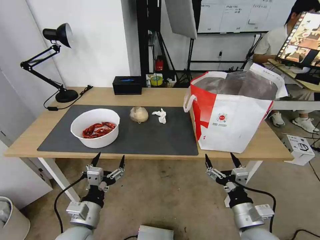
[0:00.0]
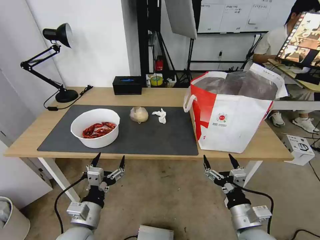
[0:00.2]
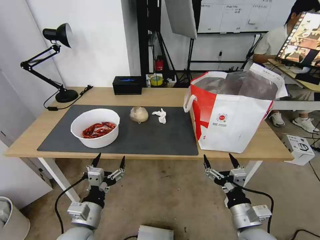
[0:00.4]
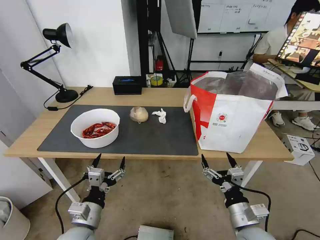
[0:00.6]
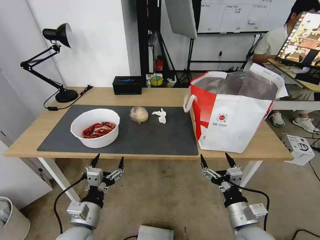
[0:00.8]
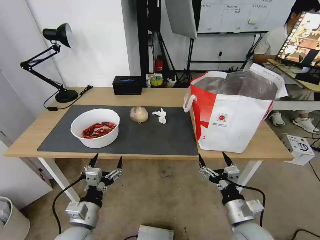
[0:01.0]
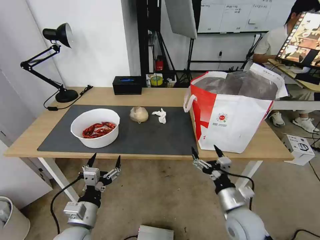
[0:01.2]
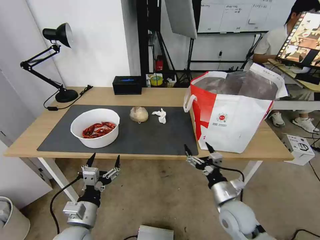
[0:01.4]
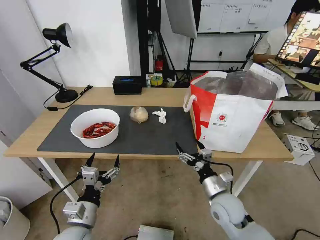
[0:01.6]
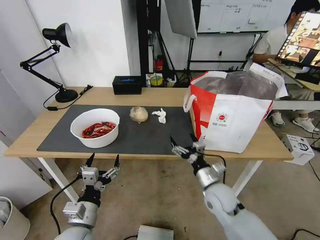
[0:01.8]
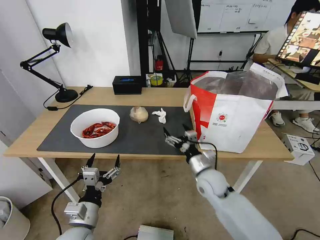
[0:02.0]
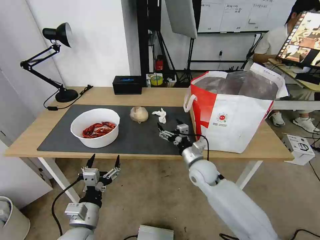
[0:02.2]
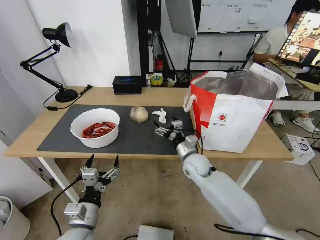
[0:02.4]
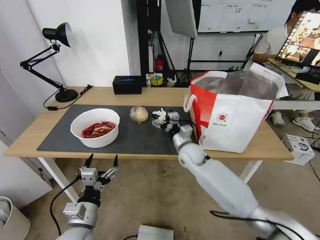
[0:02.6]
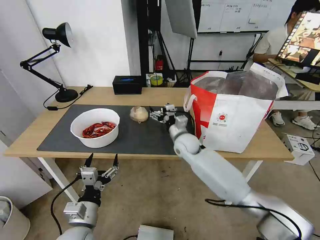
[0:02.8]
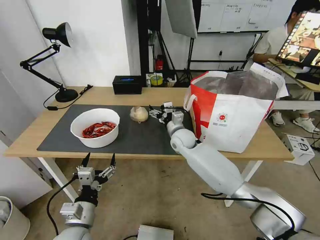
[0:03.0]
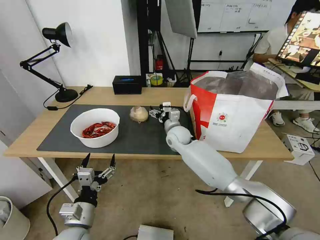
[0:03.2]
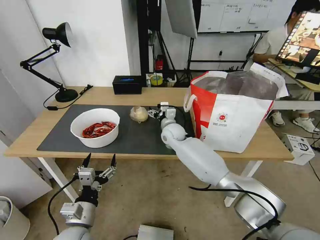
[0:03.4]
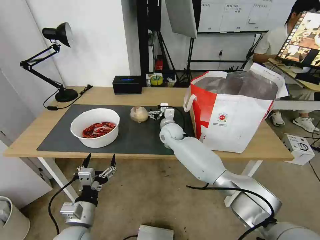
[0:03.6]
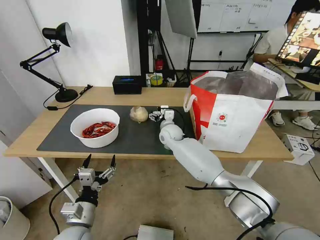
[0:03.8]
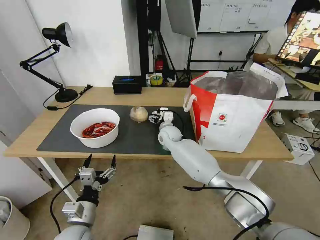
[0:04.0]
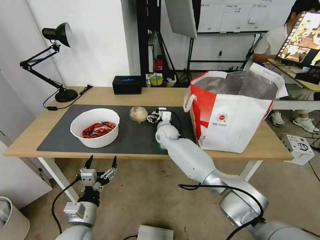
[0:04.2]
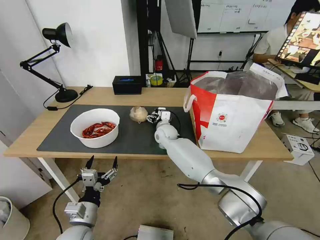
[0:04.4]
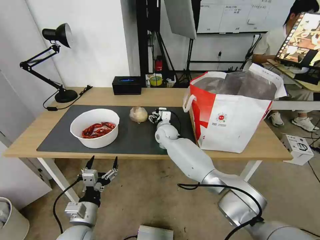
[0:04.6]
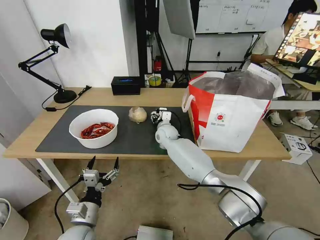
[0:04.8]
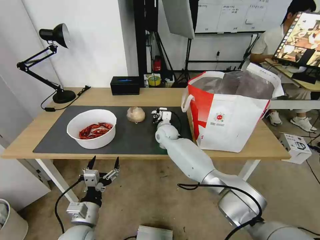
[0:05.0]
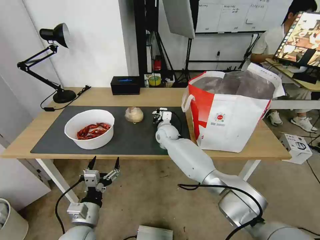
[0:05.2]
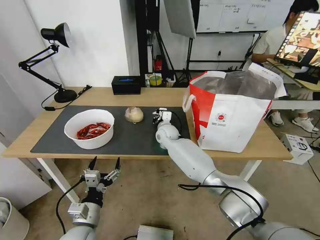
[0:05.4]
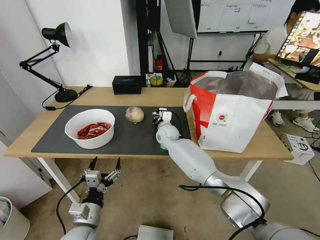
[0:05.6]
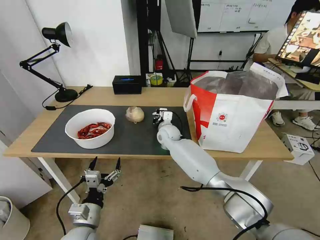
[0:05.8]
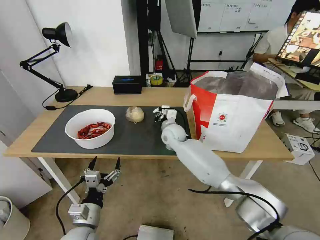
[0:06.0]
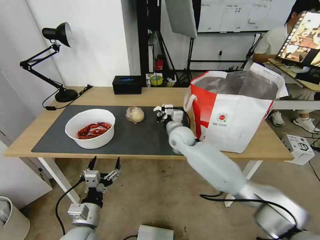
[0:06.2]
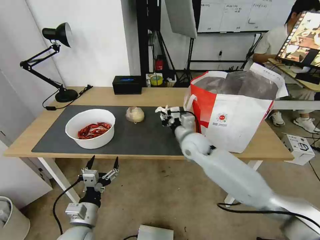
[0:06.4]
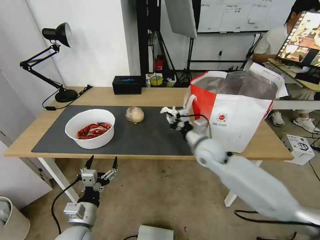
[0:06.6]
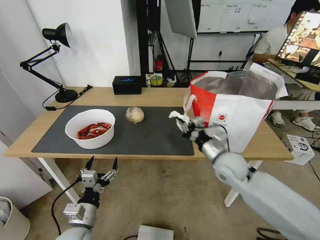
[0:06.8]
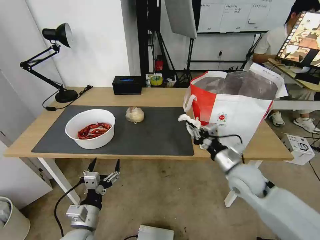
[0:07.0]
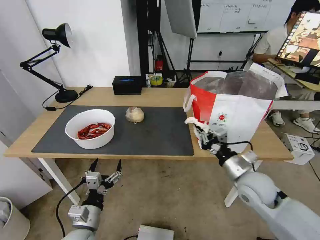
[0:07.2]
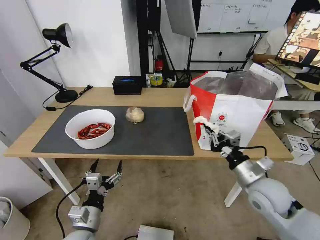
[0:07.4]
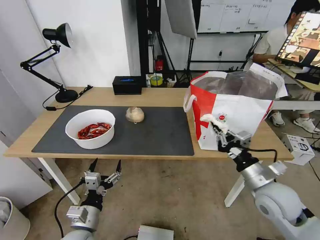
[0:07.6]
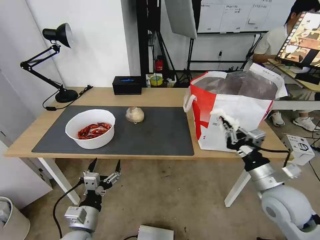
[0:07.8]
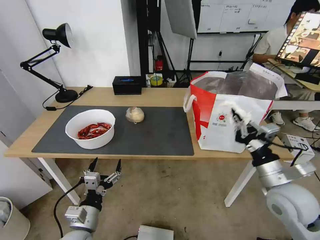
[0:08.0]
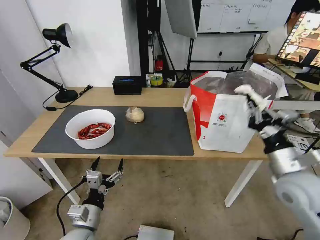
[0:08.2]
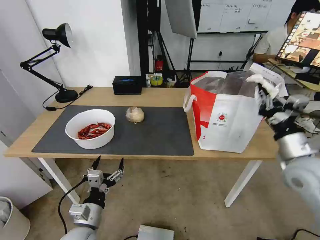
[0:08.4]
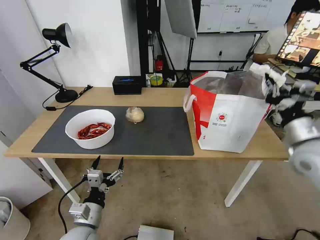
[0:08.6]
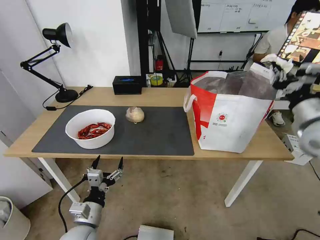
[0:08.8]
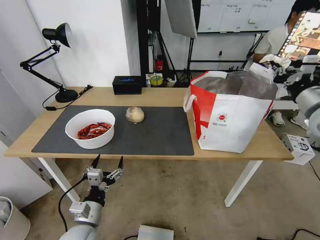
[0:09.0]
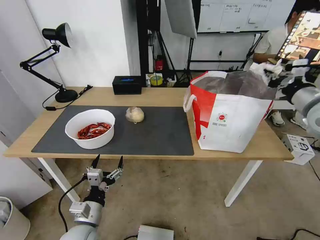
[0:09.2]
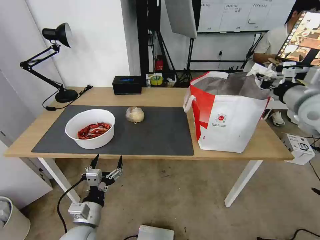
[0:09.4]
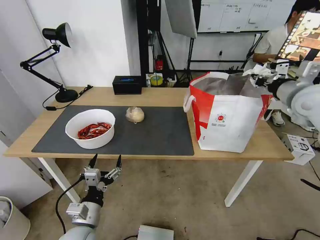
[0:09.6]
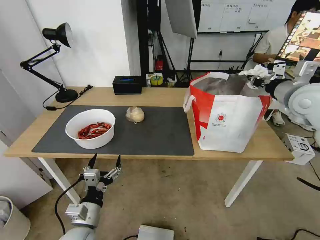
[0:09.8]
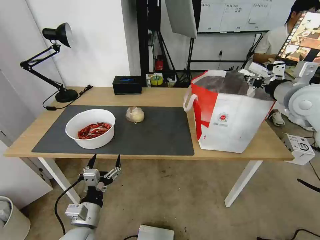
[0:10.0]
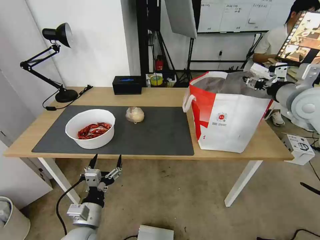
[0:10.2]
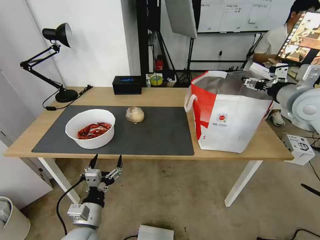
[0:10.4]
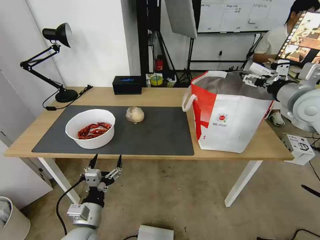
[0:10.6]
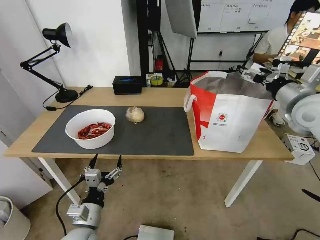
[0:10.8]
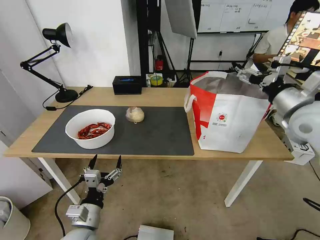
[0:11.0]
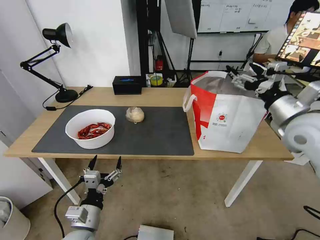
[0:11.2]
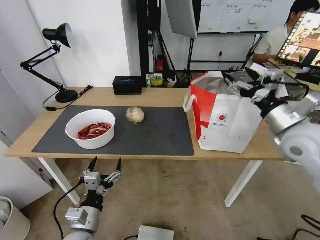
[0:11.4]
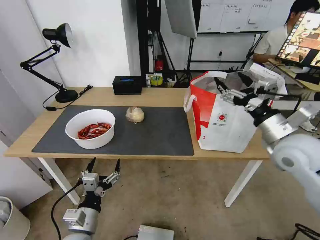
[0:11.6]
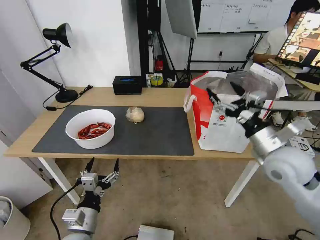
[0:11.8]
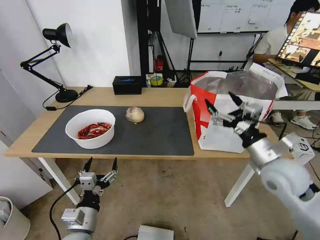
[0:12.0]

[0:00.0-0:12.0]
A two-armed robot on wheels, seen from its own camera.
Task of the whole recording: Pick up the trash from the table and place it into the takeout bag.
0:00.0 to 0:01.6: The right gripper goes roughly 10 cm forward.
0:01.6 to 0:03.0: The right gripper moves forward and to the left, some 25 cm.
0:03.0 to 0:04.4: The right gripper moves to the left and forward, approximately 10 cm.
0:04.4 to 0:06.0: The right gripper changes place by about 5 cm, and closes its fingers.
0:06.0 to 0:07.6: The right gripper heads backward and to the right, covering about 35 cm.
0:07.6 to 0:09.0: The right gripper shifts roughly 25 cm upward, forward and to the right.
0:09.0 to 0:10.4: The right gripper changes place by roughly 5 cm, and opens.
0:10.4 to 0:12.0: The right gripper goes some 20 cm downward, backward and to the left.

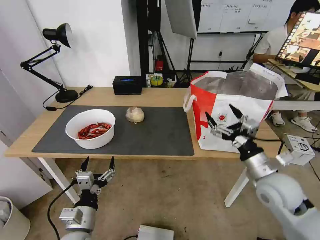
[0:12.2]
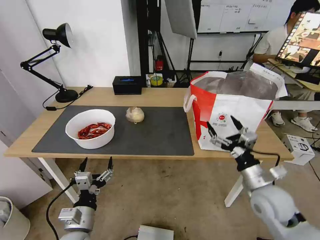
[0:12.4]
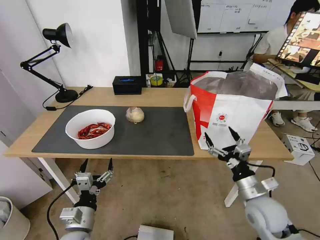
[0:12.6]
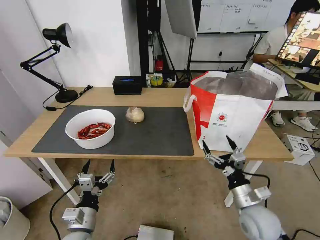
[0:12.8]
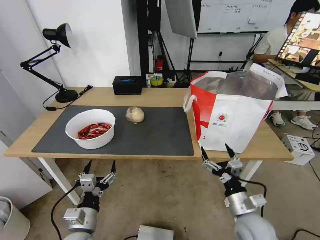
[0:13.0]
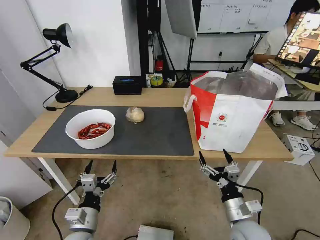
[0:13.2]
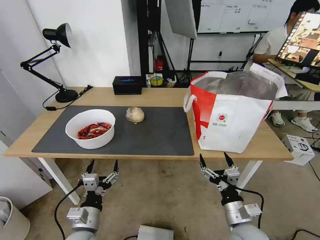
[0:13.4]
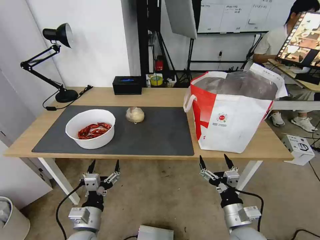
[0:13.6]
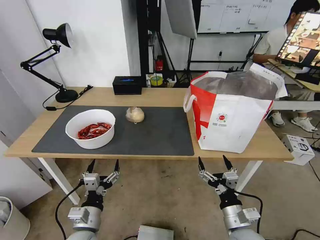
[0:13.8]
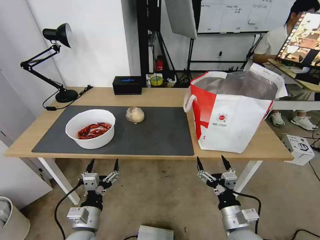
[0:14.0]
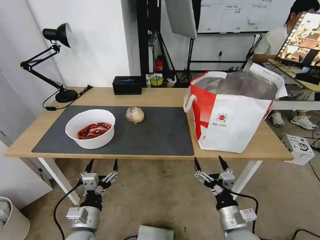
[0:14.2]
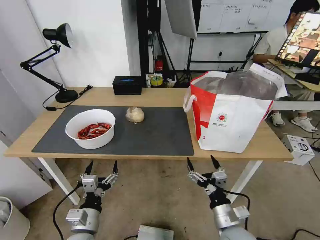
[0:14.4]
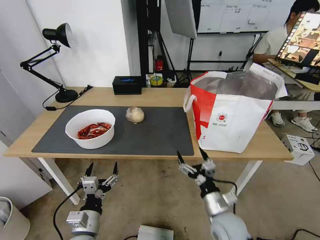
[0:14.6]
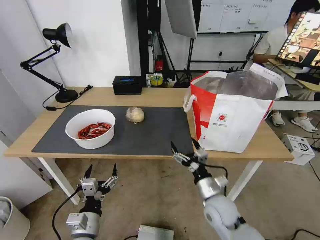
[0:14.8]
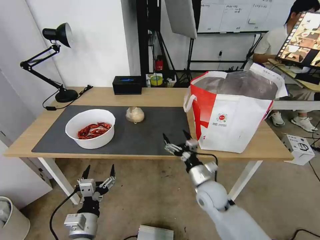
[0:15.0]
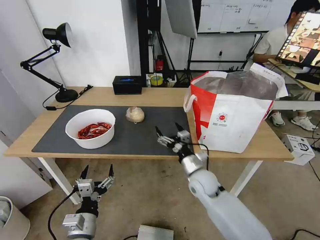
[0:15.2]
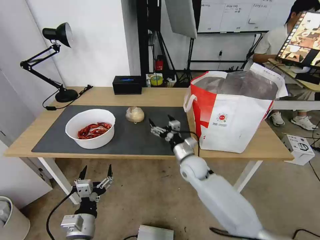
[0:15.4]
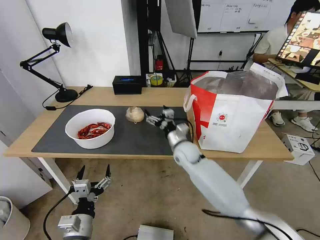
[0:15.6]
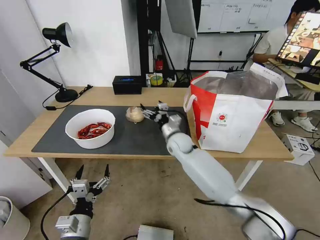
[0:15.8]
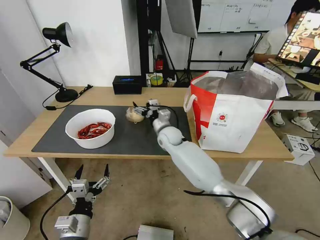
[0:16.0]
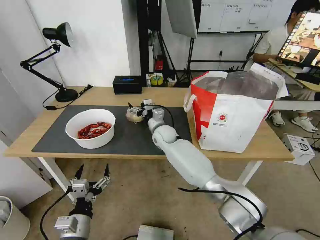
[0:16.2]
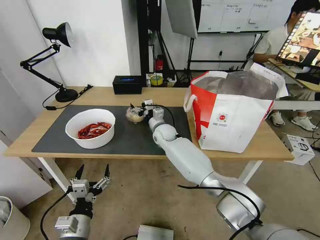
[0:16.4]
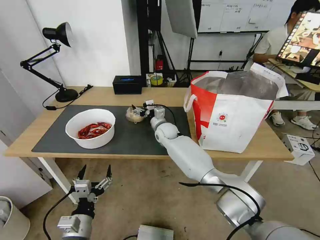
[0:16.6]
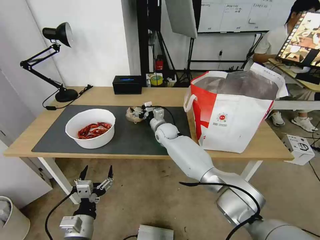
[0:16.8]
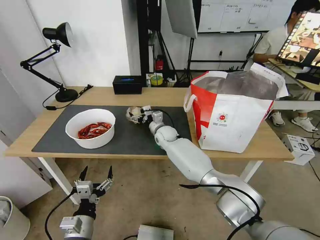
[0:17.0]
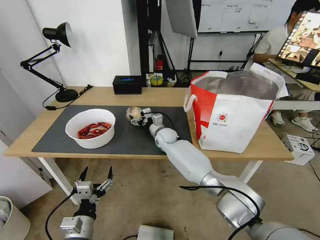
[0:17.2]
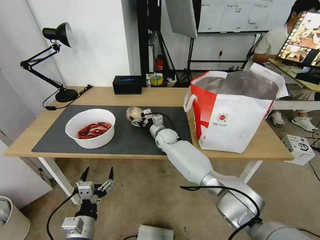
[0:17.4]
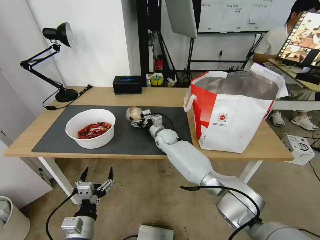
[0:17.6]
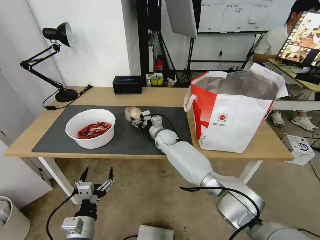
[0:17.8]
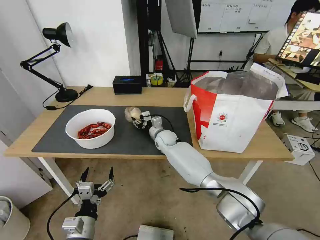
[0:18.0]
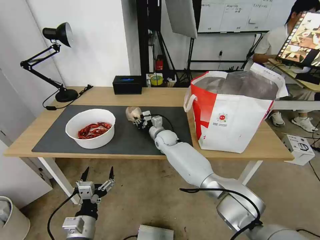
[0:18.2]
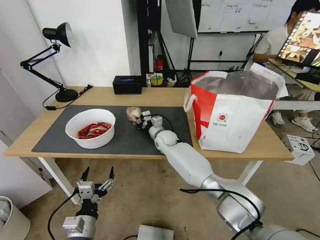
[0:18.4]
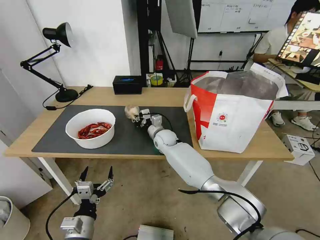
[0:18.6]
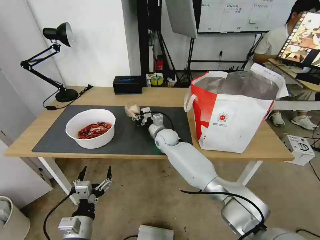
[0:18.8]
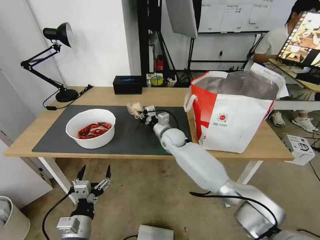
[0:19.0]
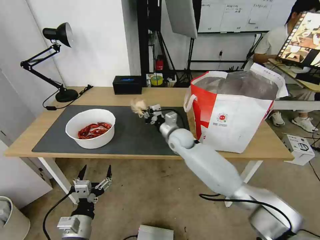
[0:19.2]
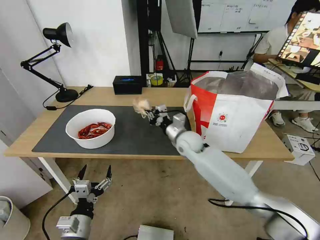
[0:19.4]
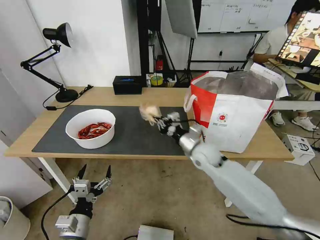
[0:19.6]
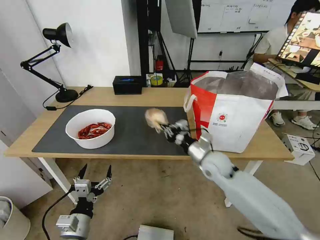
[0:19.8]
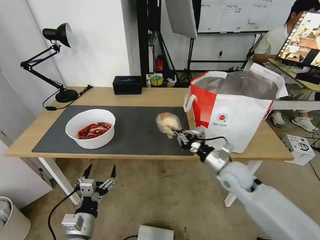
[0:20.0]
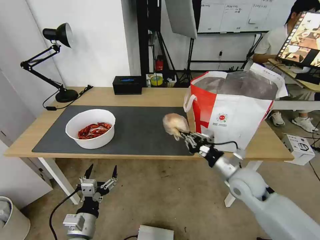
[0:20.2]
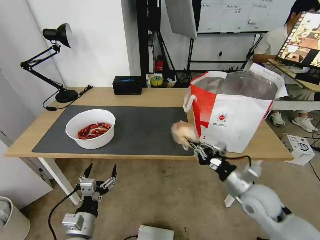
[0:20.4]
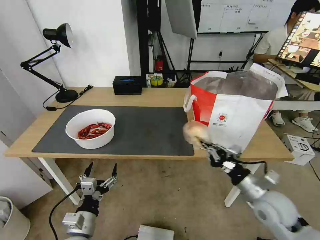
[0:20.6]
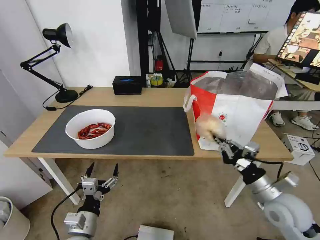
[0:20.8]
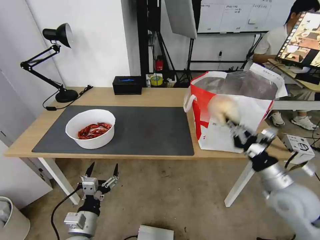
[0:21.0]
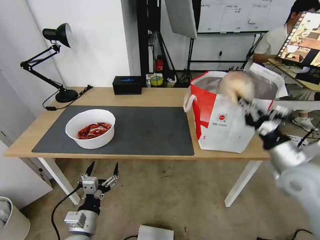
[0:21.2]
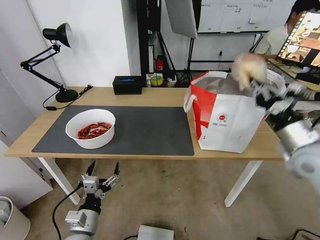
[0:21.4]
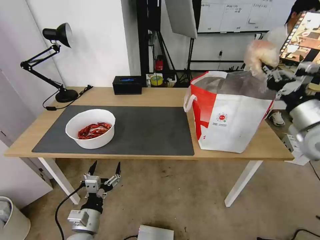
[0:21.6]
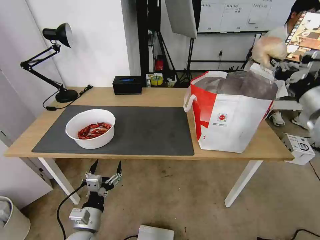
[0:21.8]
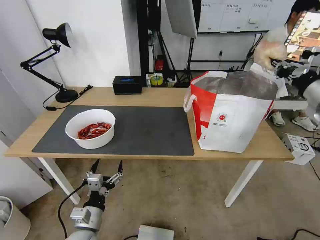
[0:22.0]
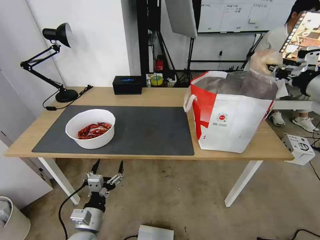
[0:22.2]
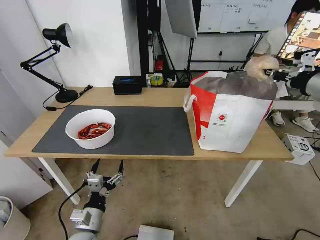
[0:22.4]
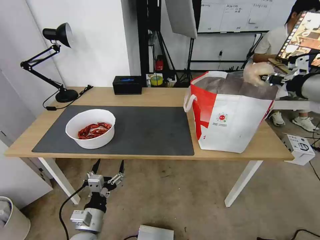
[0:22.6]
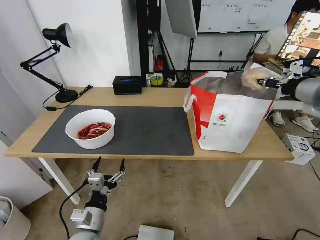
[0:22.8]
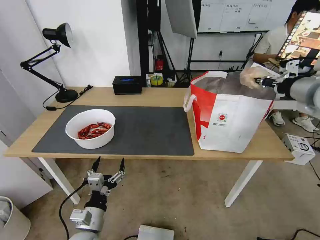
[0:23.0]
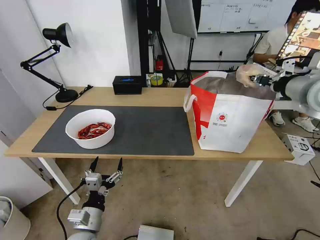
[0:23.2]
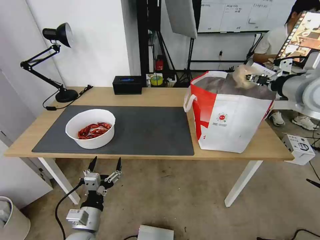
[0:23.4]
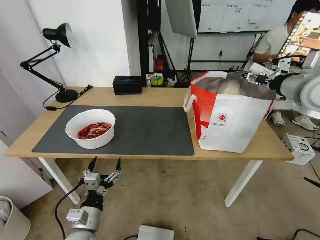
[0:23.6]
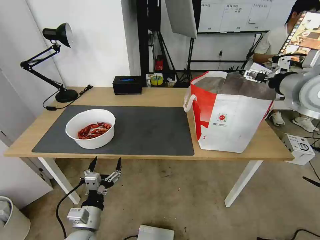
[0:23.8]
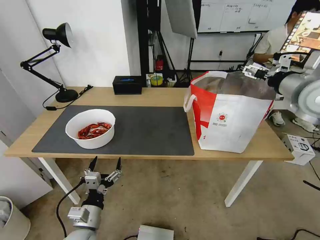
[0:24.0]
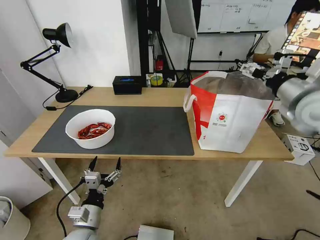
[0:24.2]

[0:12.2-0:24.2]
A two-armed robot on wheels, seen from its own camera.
Task of the whole recording: Pick up the trash from the table and place it into the takeout bag.
0:12.2 to 0:13.8: The right gripper moves downward, backward and to the left, roughly 20 cm.
0:13.8 to 0:15.2: The right gripper moves forward and to the left, approximately 20 cm.
0:15.2 to 0:16.6: The right gripper shifts about 25 cm forward and to the left.
0:16.6 to 0:18.2: The right gripper closes its fingers.
0:18.2 to 0:19.8: The right gripper moves backward and to the right, approximately 25 cm.
0:19.8 to 0:21.2: The right gripper moves to the right, upward and backward, some 20 cm.
0:21.2 to 0:22.6: The right gripper moves upward and forward, about 20 cm.
0:22.6 to 0:24.2: The right gripper moves downward, some 5 cm, and opens.
